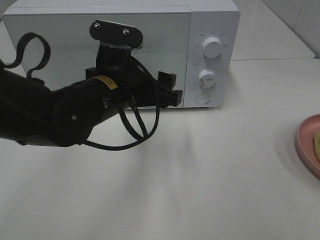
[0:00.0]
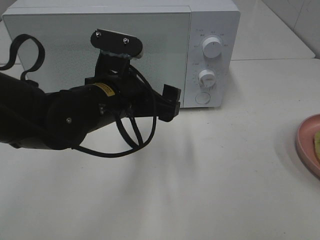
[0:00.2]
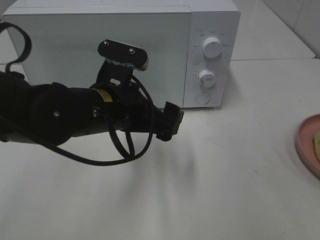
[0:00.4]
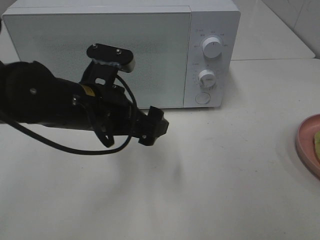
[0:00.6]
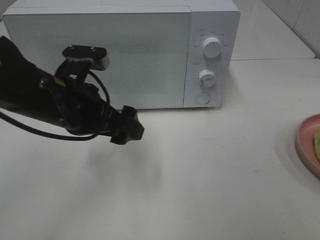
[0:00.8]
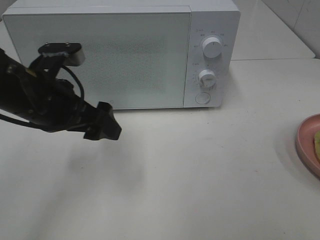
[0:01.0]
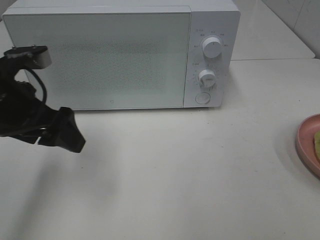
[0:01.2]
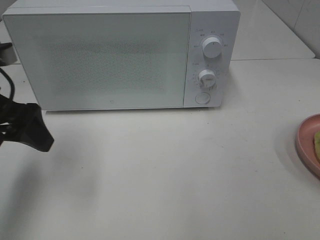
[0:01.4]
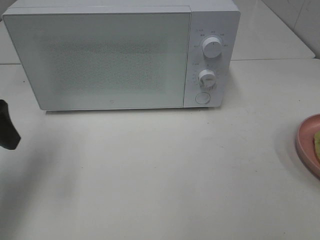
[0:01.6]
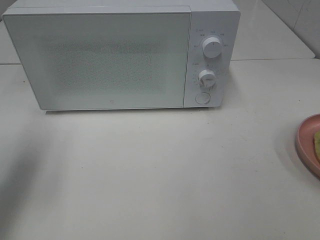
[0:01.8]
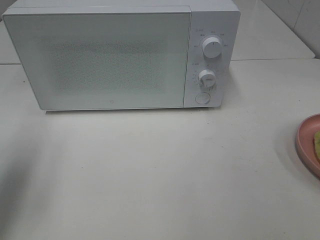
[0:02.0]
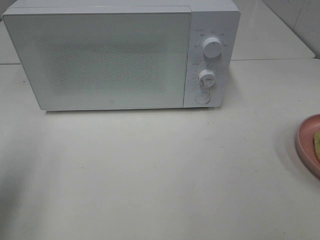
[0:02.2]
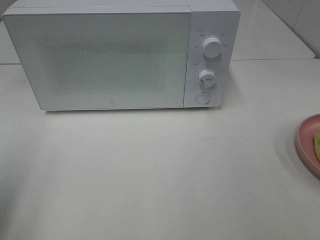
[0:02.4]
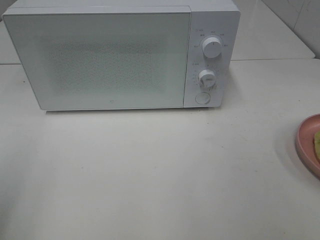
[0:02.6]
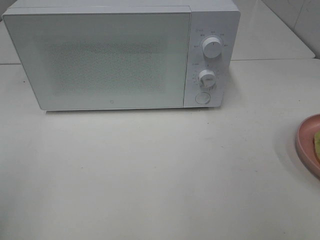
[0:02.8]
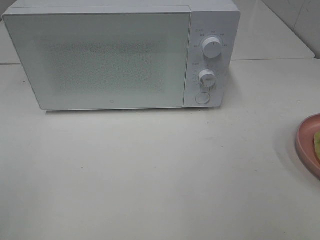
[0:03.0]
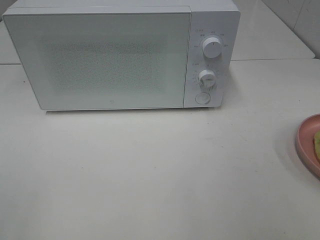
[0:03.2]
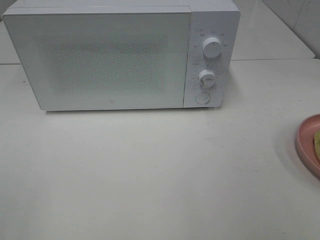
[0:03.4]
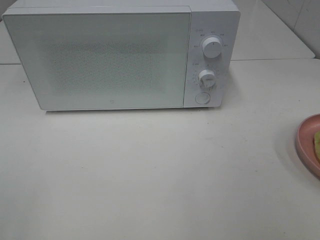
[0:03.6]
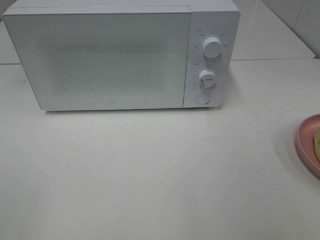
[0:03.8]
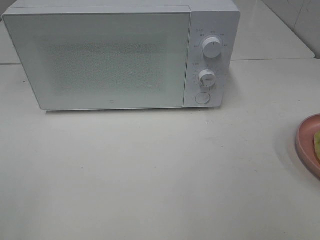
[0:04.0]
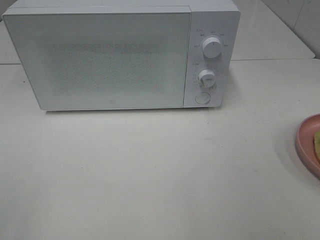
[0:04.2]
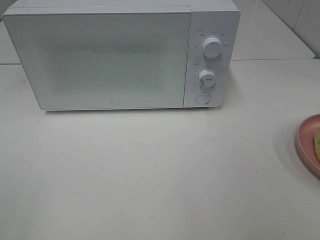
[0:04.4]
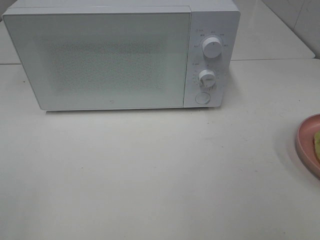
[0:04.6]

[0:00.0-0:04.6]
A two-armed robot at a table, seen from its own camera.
Task of the whole recording: Heat Sandwich.
0:00.0 to 0:01.6: The left gripper travels to the left by about 20 cm.
0:01.6 to 0:03.0: The left gripper moves backward, about 20 cm.

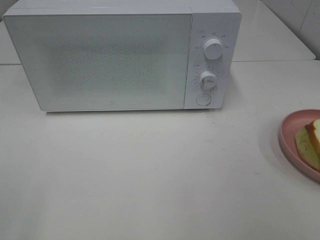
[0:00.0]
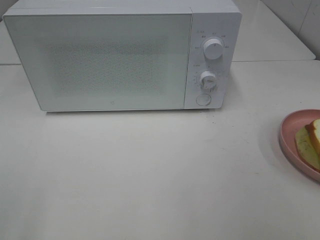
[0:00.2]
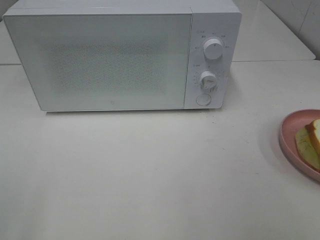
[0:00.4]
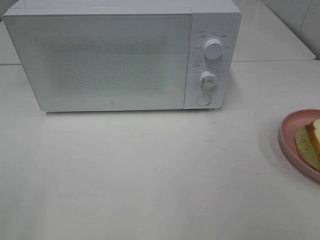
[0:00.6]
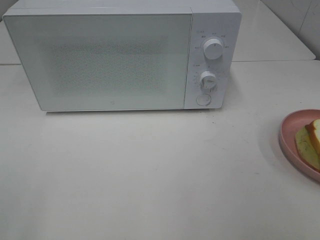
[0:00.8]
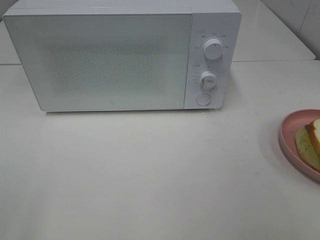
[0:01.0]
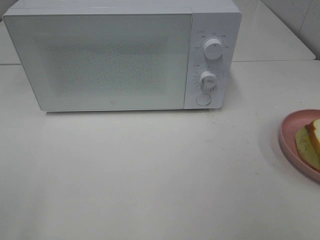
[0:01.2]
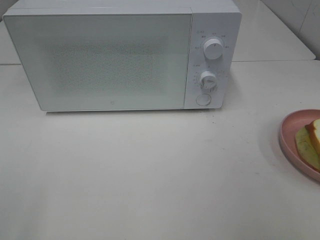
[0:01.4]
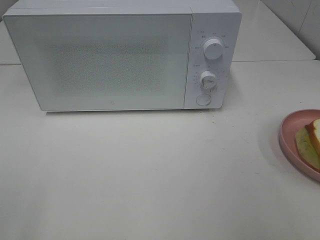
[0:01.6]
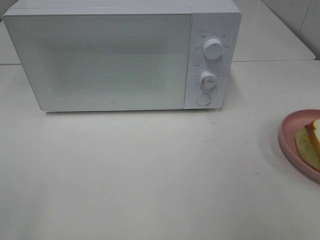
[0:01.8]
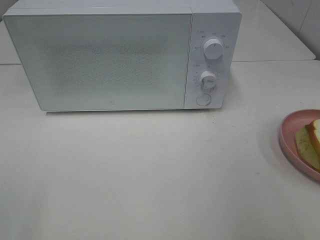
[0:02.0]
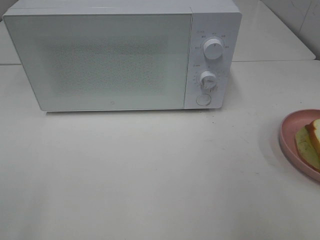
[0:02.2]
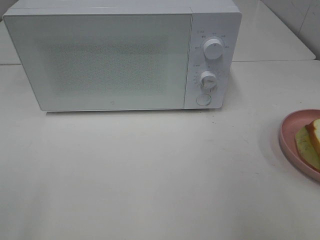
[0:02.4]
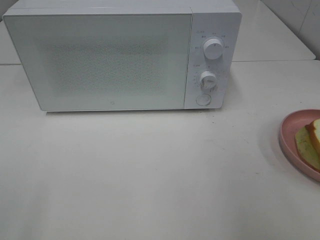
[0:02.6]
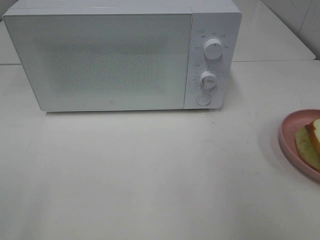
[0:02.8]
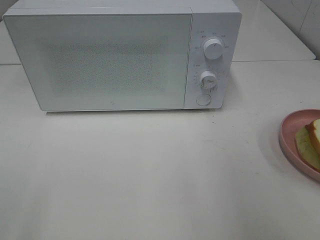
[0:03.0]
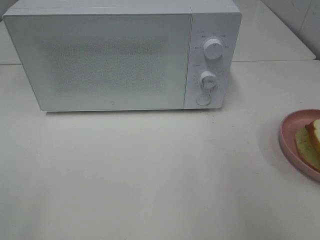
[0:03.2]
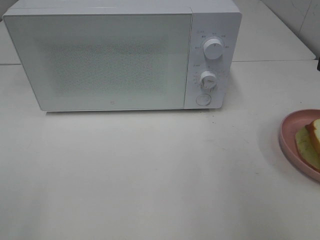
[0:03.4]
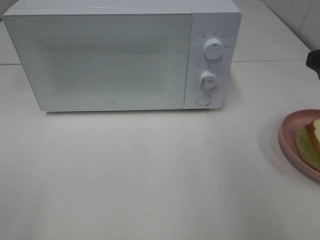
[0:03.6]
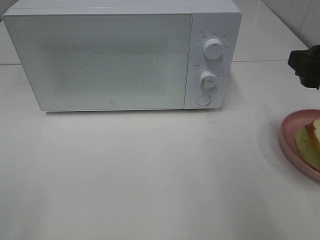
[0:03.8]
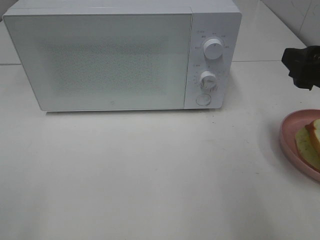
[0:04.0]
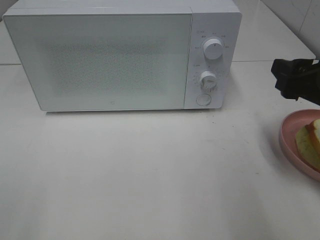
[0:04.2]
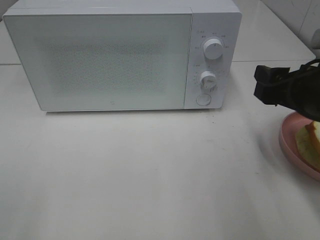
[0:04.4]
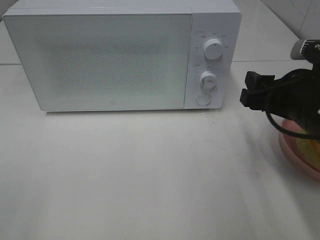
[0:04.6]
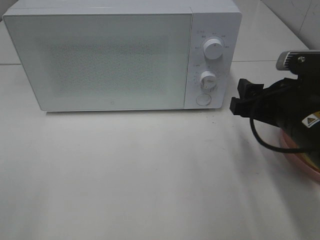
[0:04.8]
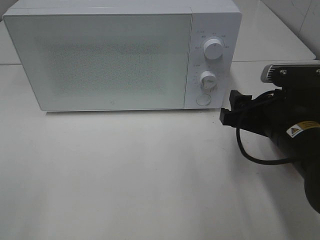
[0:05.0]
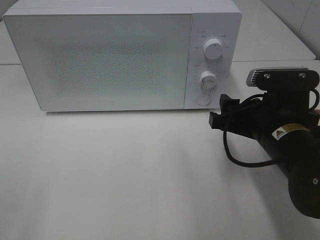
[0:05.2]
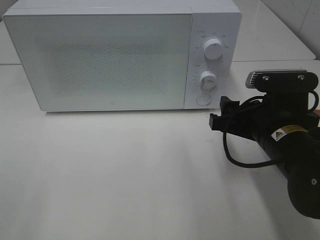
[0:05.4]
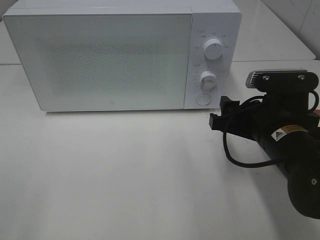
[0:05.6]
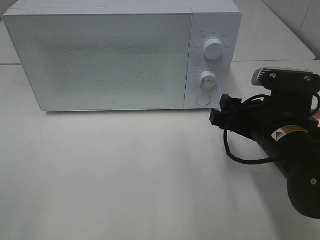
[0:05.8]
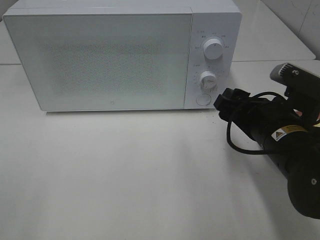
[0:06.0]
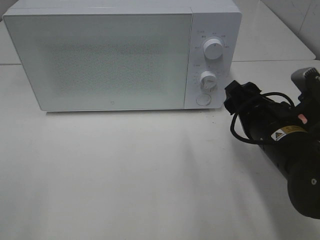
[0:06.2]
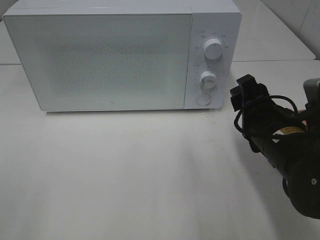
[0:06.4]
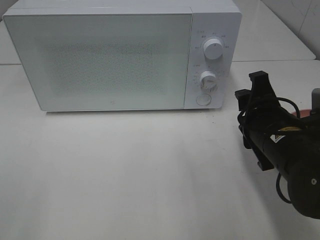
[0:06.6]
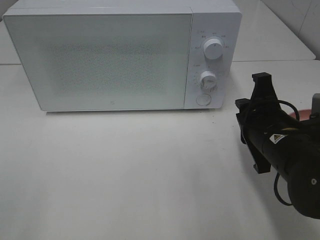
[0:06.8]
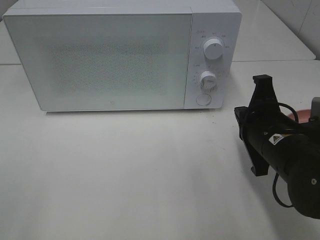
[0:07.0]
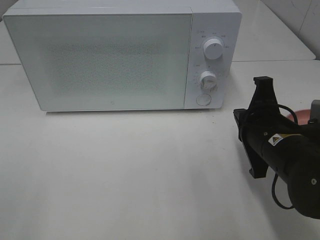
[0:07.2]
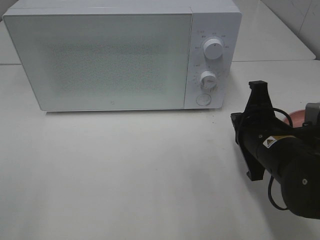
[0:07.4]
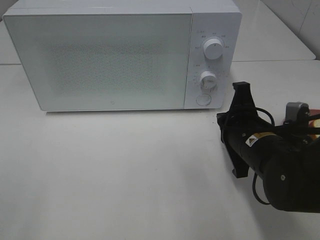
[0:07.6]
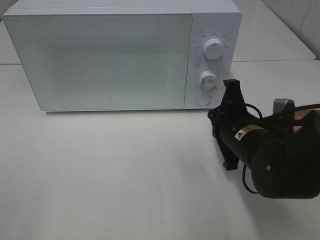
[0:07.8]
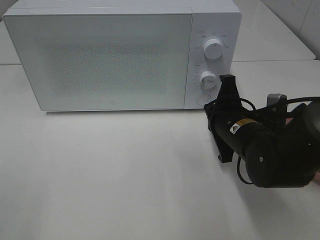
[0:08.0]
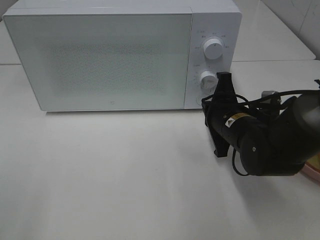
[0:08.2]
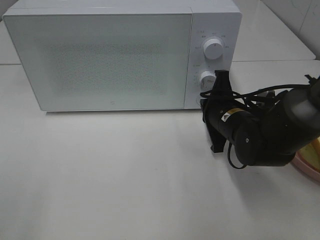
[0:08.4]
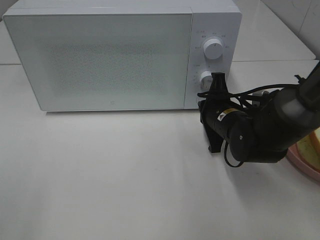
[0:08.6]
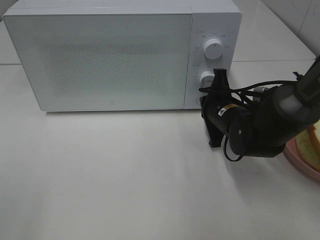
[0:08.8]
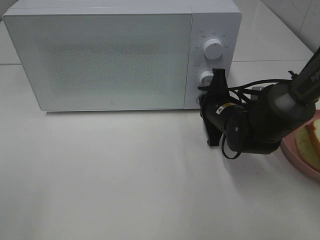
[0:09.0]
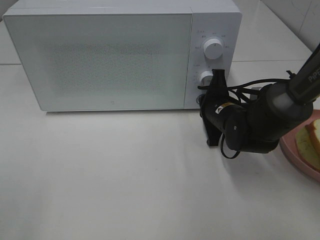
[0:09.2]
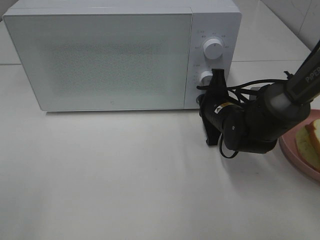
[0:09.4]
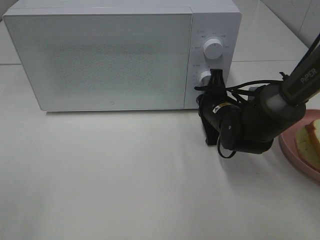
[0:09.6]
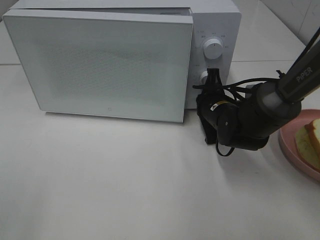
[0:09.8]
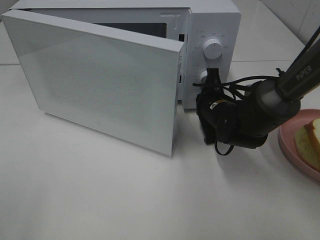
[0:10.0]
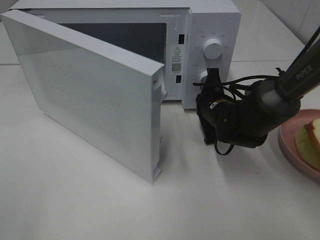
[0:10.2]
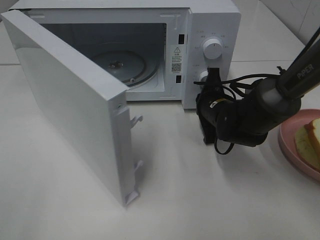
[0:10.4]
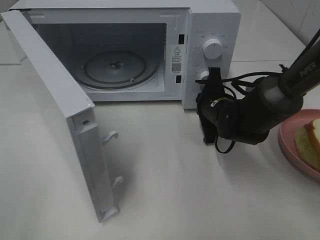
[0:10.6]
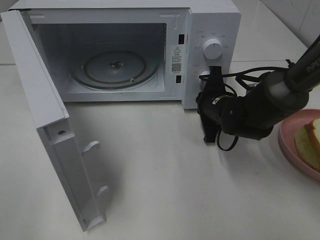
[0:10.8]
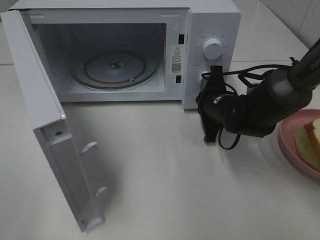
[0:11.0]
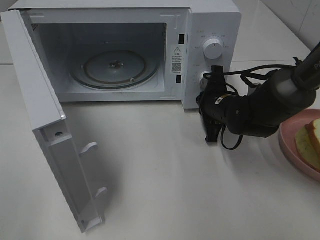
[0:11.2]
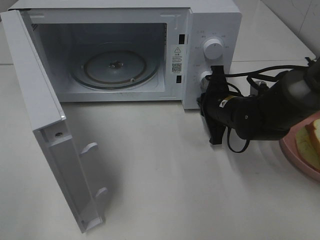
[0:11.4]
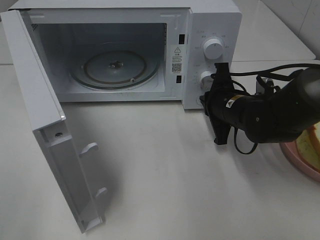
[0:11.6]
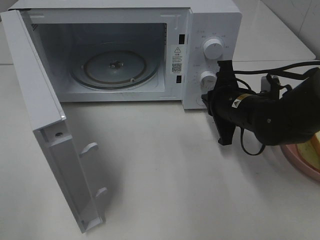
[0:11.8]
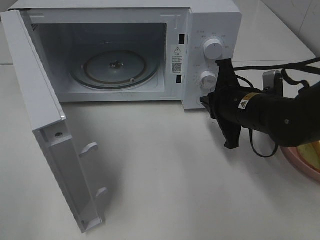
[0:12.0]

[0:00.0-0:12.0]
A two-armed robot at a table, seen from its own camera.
Task of the whole recording: Heat Sandwich.
Step, 0:00.0 to 0:11.6: Right hand: press the switch.
0:03.0 to 0:04.4: The right gripper goes roughly 10 cm downward and to the left.
0:04.4 to 0:06.0: The right gripper travels downward and to the left by about 10 cm.
0:06.0 to 0:07.6: The right gripper closes up.
0:07.6 to 0:09.0: The right gripper is displaced forward by about 10 cm.
0:10.4 to 0:12.0: The right gripper heads backward and upward, covering roughly 10 cm.

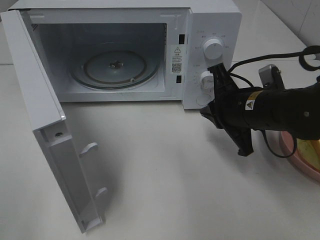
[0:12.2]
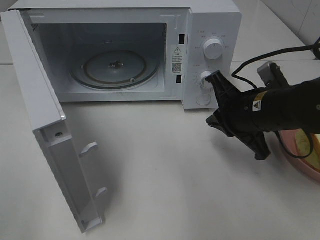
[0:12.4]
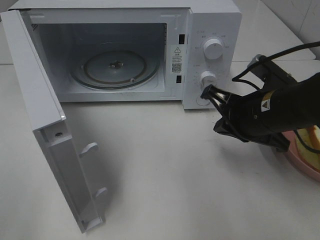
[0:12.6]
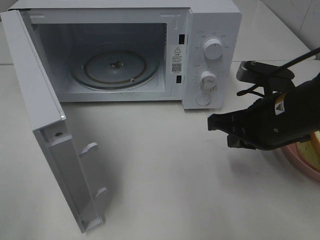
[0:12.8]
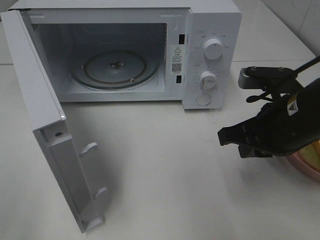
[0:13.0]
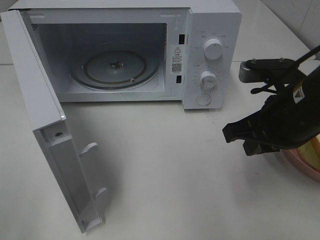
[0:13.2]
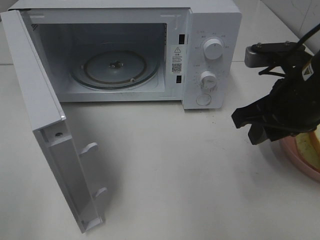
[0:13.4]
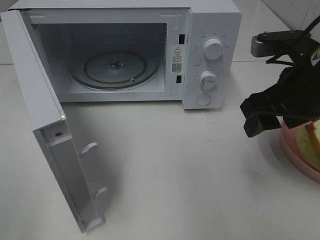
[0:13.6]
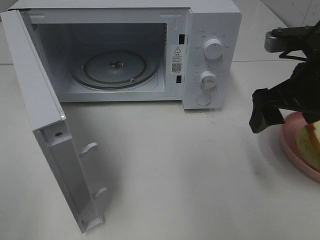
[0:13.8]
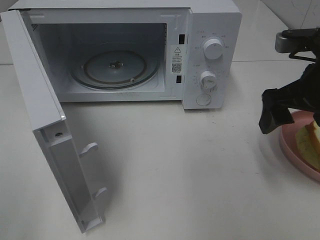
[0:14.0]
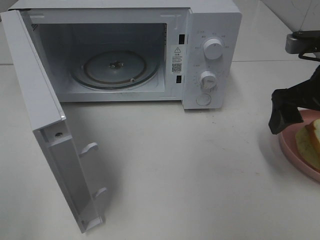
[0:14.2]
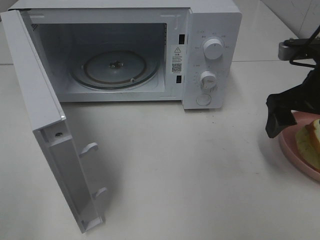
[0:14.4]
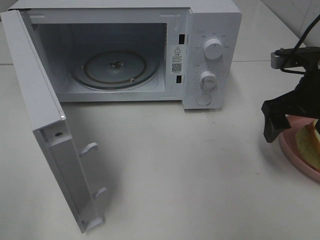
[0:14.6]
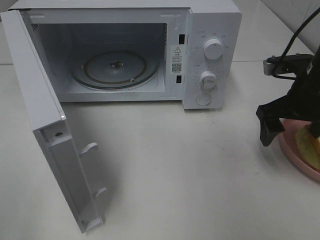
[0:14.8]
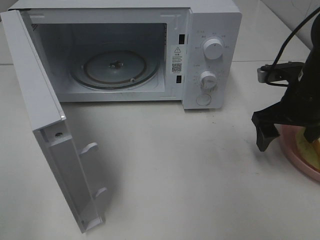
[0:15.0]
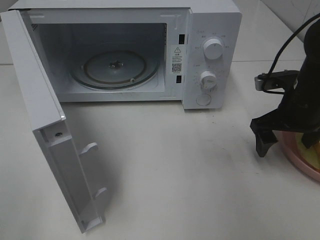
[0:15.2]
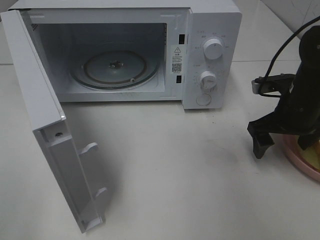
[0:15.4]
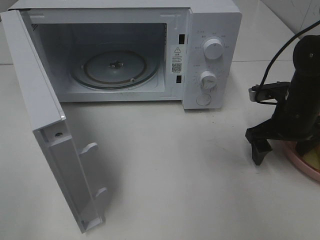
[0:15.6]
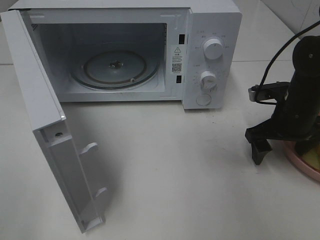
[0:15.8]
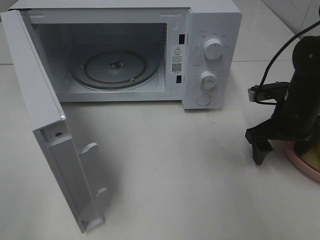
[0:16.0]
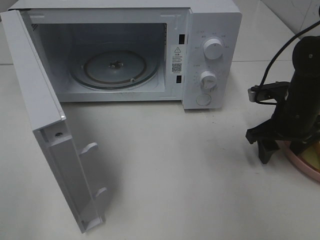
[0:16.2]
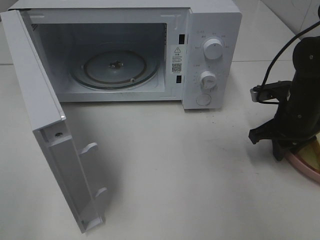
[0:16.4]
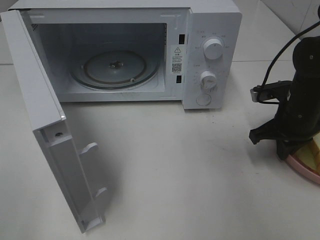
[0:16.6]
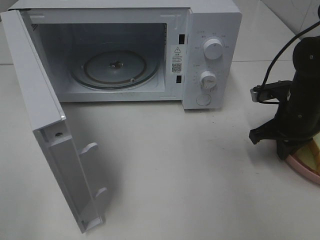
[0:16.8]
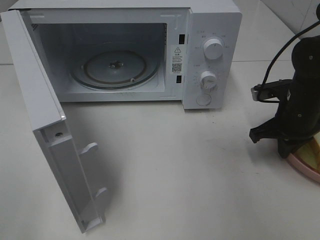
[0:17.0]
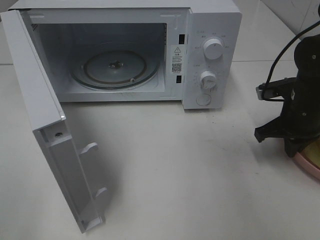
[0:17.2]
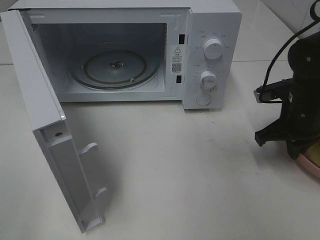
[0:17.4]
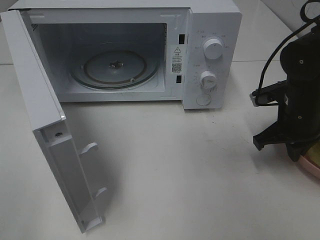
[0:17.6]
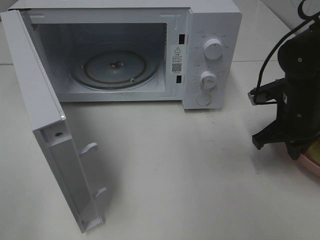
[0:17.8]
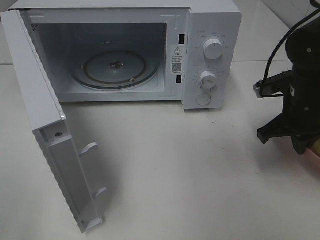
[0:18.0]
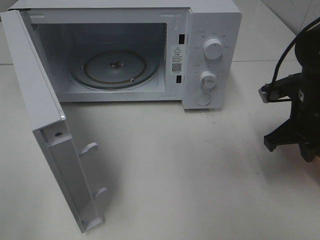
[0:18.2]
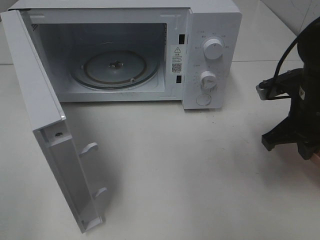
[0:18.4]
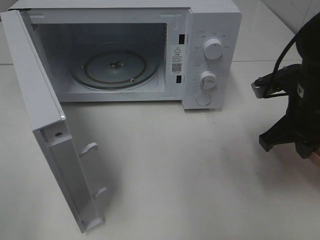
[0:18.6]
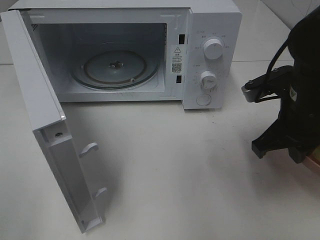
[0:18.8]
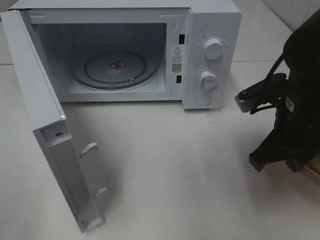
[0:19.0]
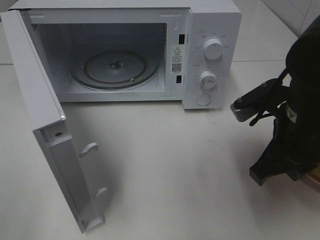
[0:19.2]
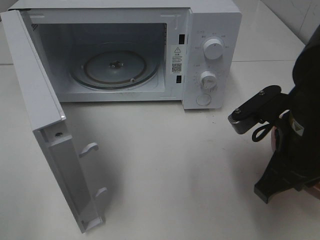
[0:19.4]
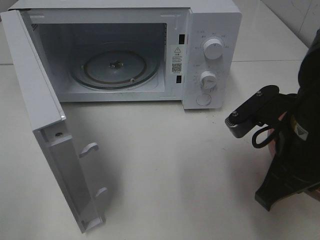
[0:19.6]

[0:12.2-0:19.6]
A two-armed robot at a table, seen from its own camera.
Task of the whole recording: Heat Sandwich.
Step, 0:12.2 to 0:16.6: Right hand: grab the plate with the sandwich.
0:12.2 to 0:13.6: The right gripper moves upward, approximately 10 cm, and opens its fingers.
0:13.6 to 0:15.2: The right gripper goes approximately 10 cm downward and forward.
0:15.2 to 0:16.6: The right gripper closes.
0:16.6 to 0:18.2: The right gripper shifts by some 5 cm.
0:18.2 to 0:19.6: The right gripper heads backward and to the left, covering some 15 cm.
